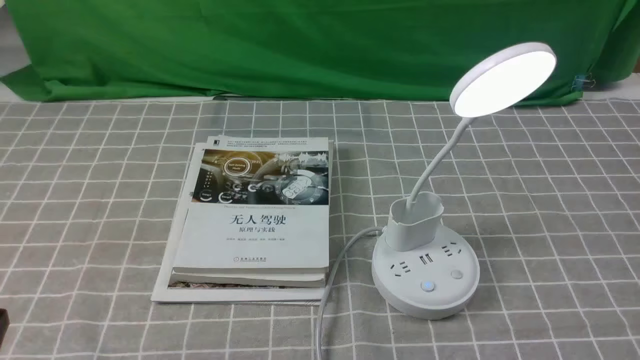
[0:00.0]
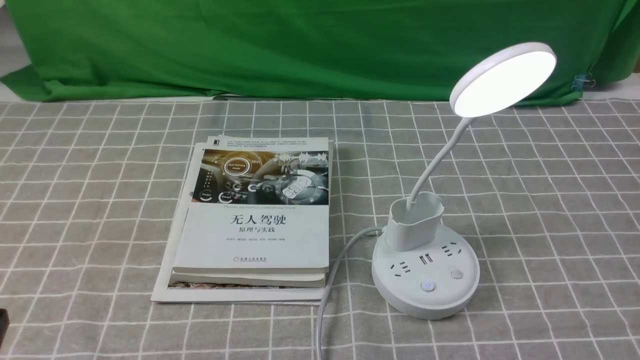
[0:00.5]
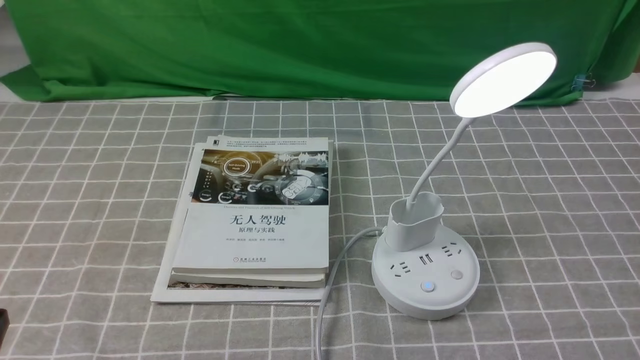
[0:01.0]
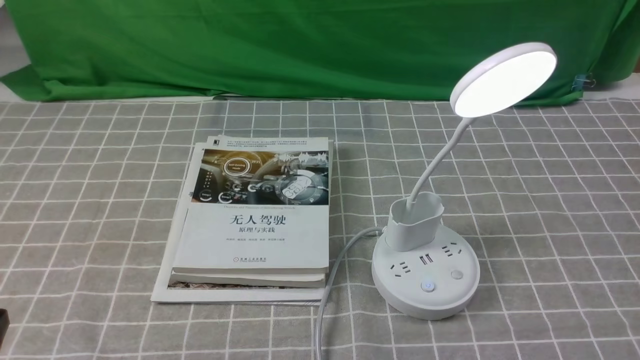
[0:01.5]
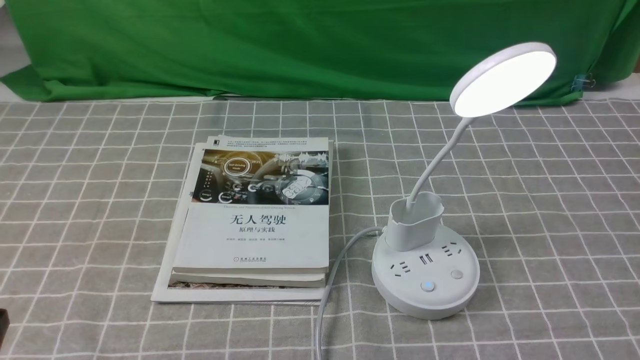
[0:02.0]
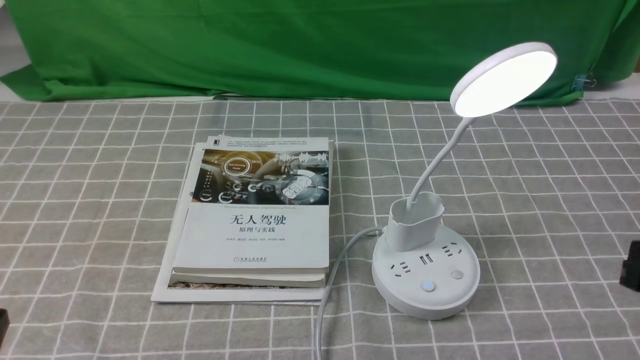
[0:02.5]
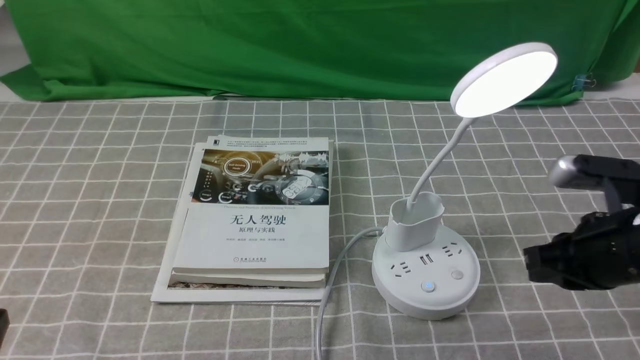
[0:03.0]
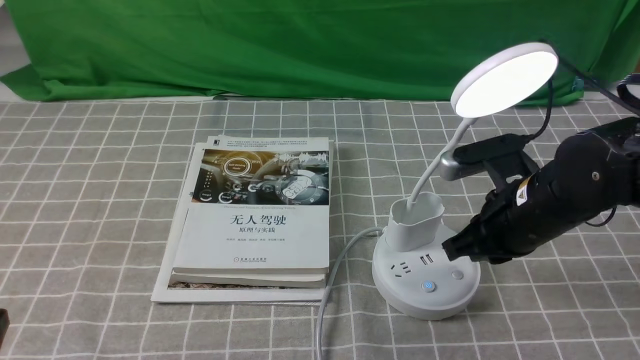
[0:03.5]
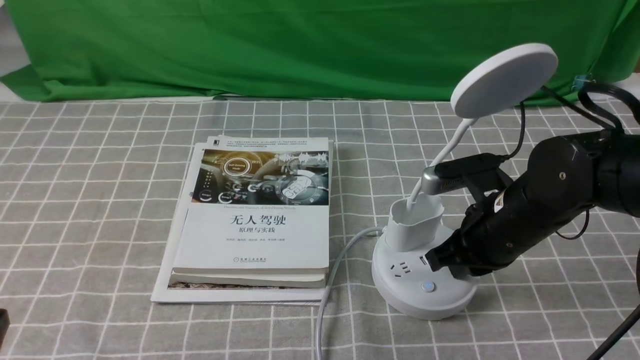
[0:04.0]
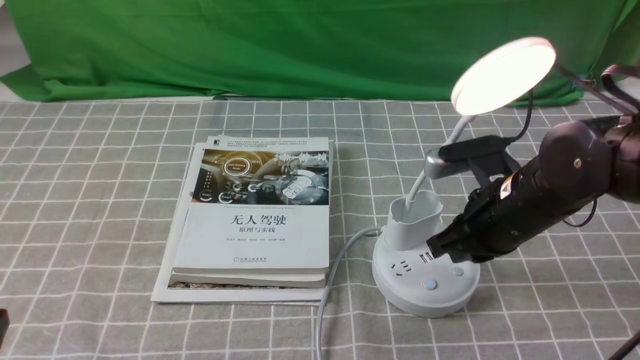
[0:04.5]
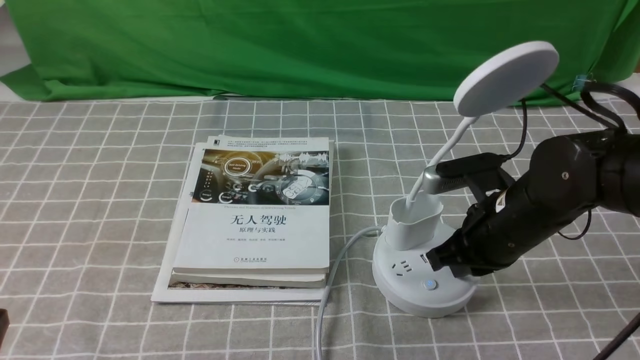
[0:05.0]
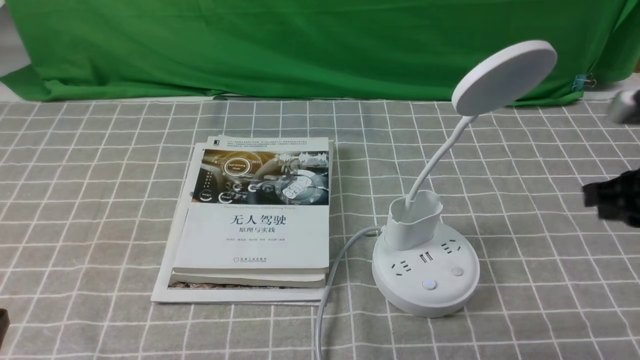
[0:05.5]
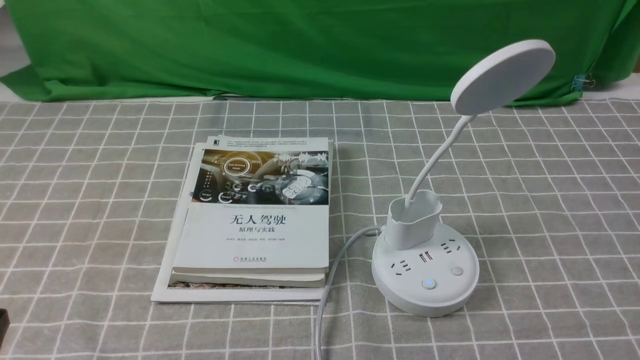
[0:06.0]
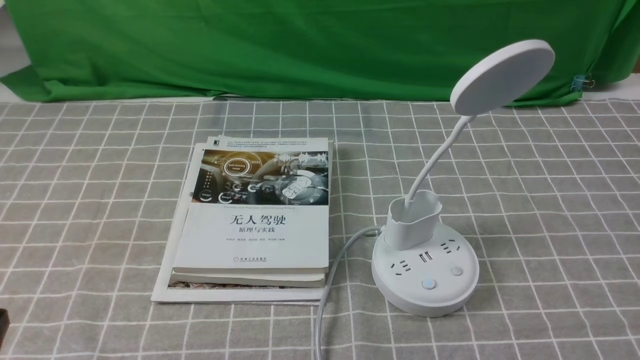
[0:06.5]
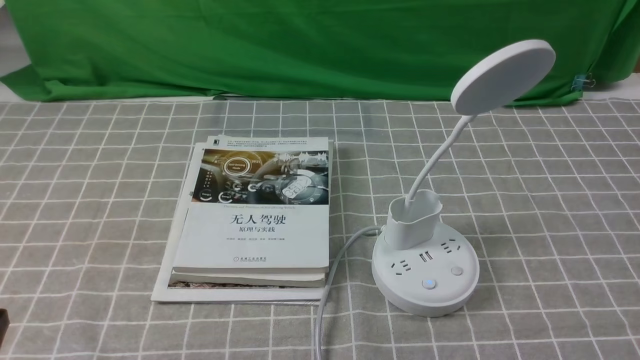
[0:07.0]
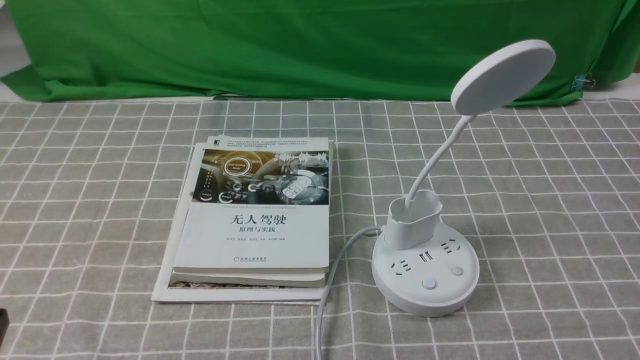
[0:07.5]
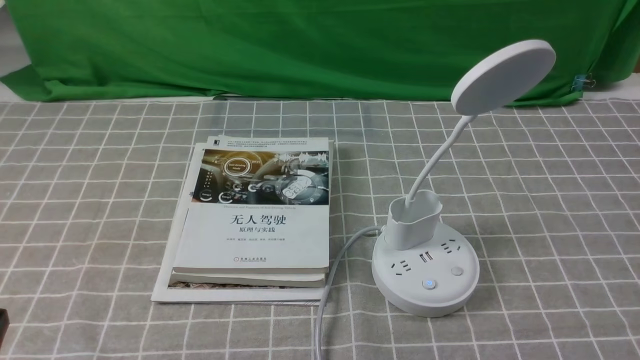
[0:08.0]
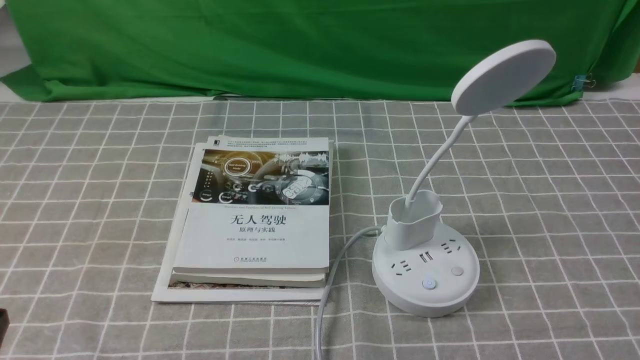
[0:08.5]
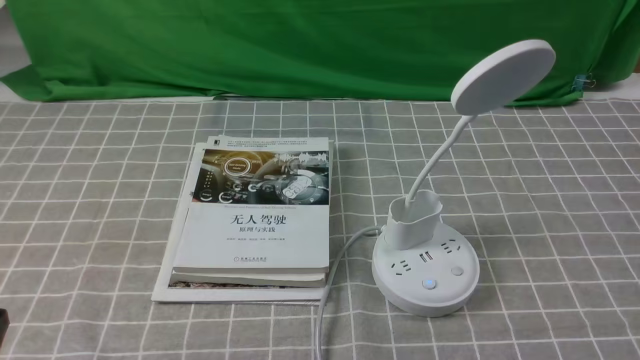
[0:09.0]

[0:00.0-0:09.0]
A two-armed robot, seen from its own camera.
Task of the whole recording: turn off the desk lamp on the grey coffee tablecloth by hand.
Step, 0:00.0 to 0:05.0: use the right arm to press the button switch on the lamp holder.
0:02.0 to 0:04.5: The right gripper travels forward, to the left and downward by roughly 30 cm, and closes.
0:04.5 to 0:07.0: The right gripper is displaced backward and to the right by approximately 30 cm.

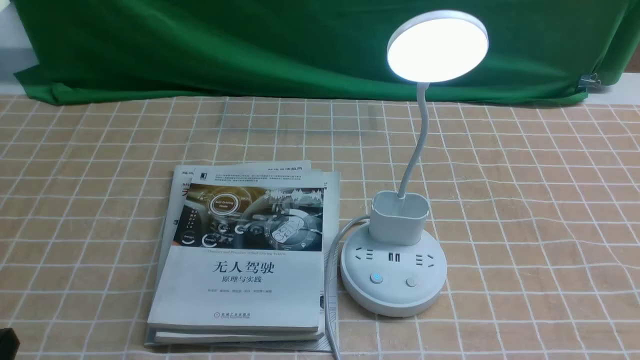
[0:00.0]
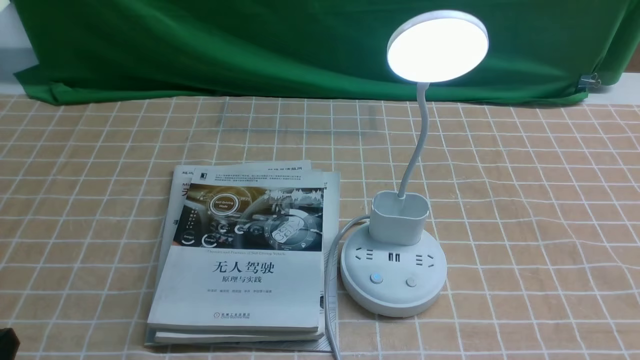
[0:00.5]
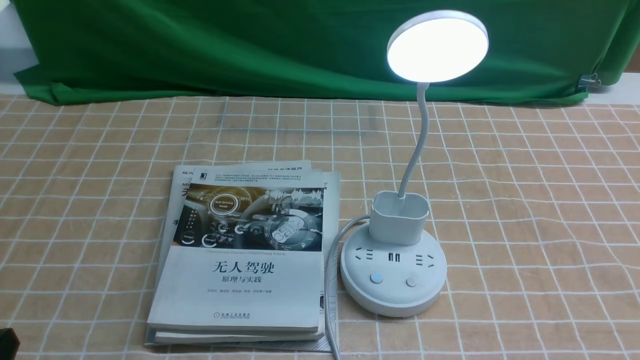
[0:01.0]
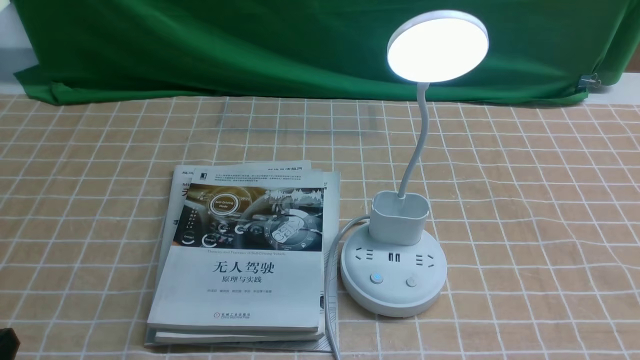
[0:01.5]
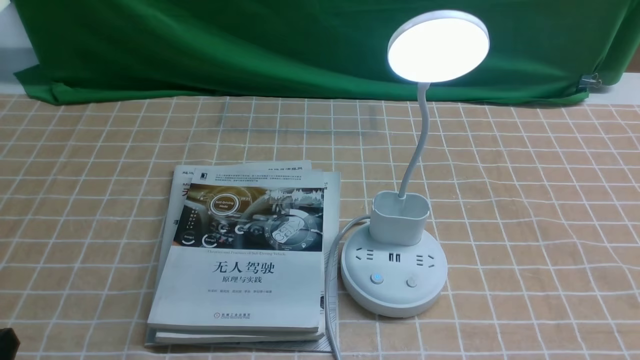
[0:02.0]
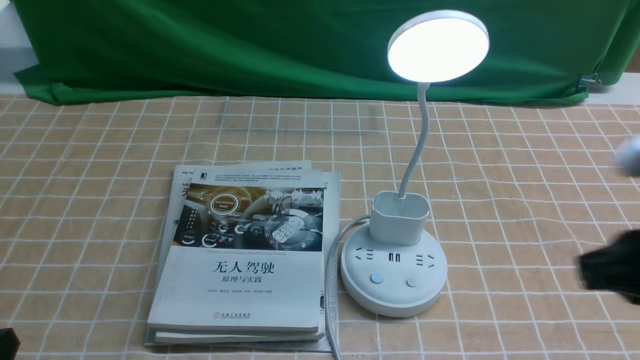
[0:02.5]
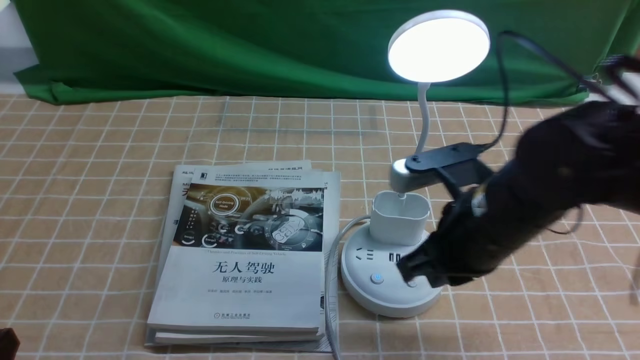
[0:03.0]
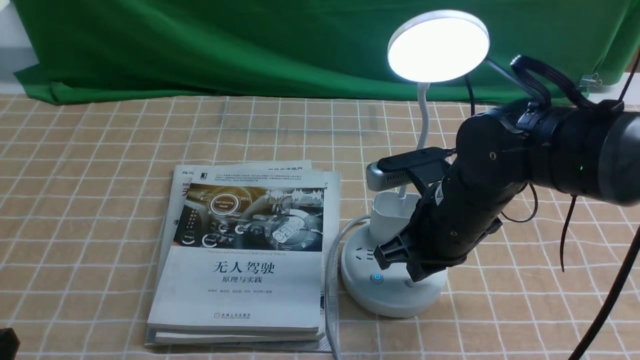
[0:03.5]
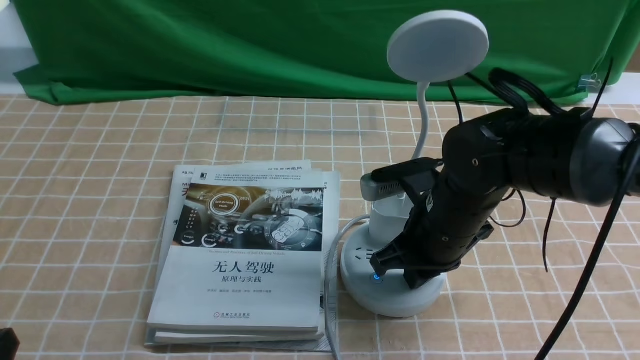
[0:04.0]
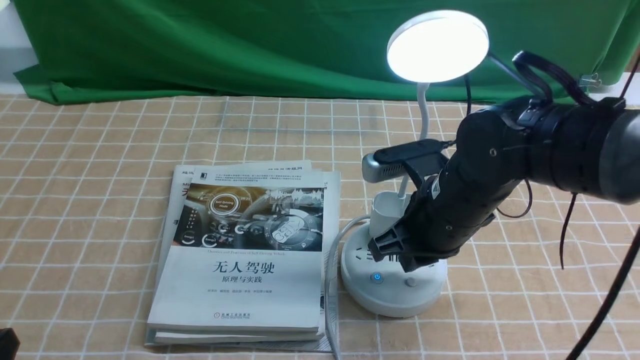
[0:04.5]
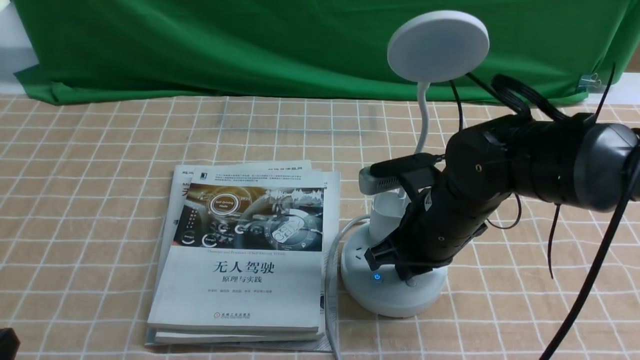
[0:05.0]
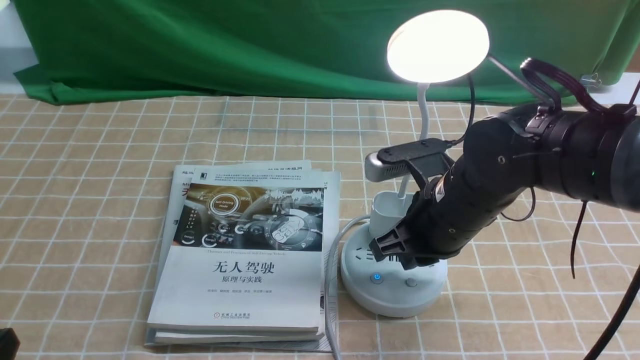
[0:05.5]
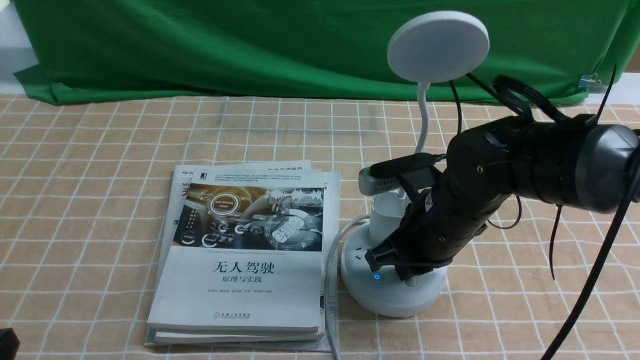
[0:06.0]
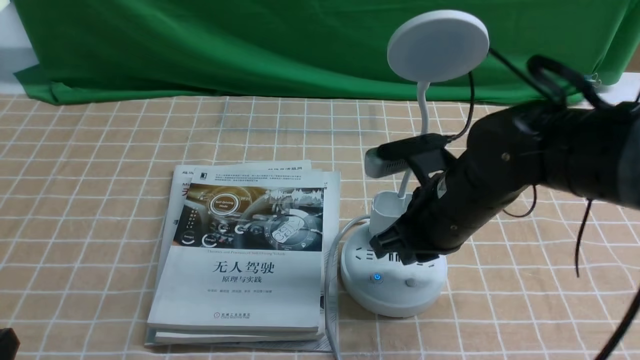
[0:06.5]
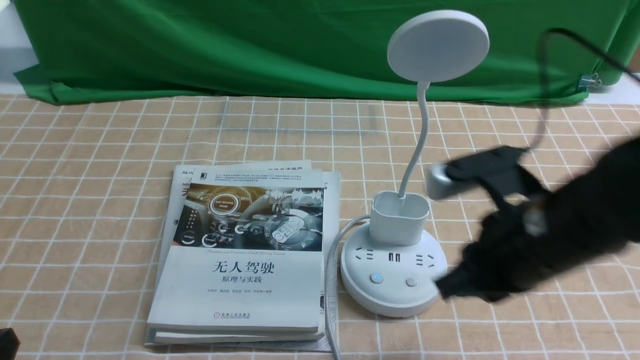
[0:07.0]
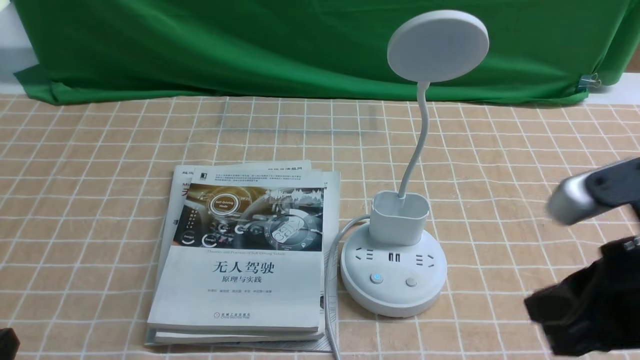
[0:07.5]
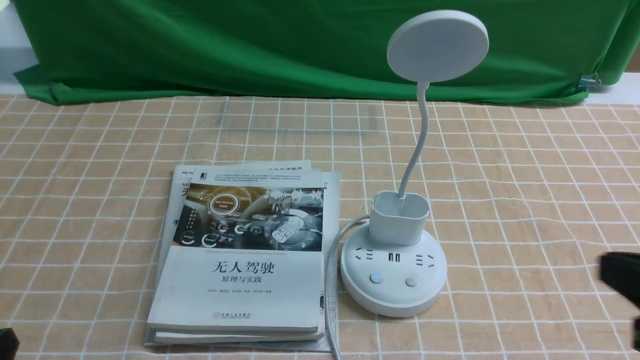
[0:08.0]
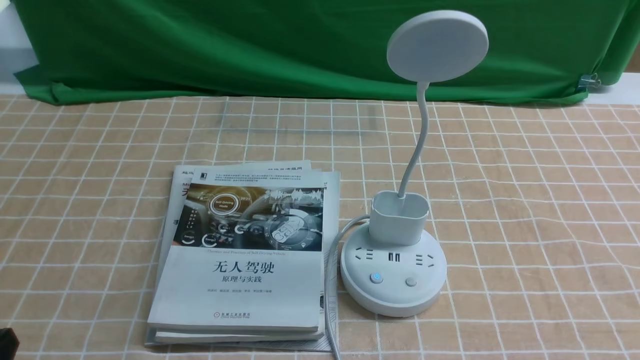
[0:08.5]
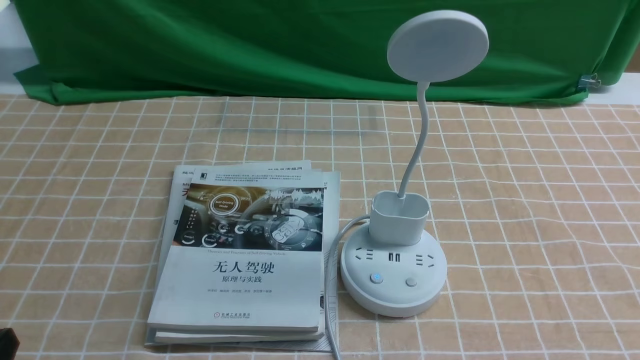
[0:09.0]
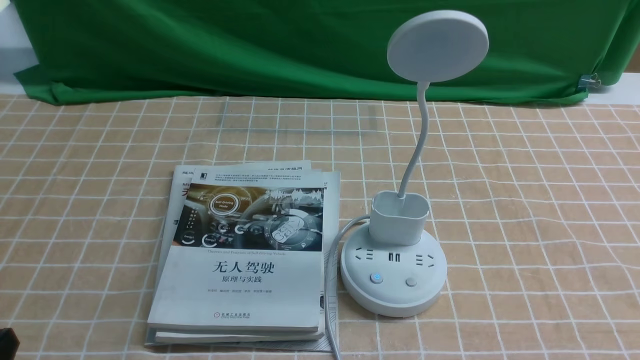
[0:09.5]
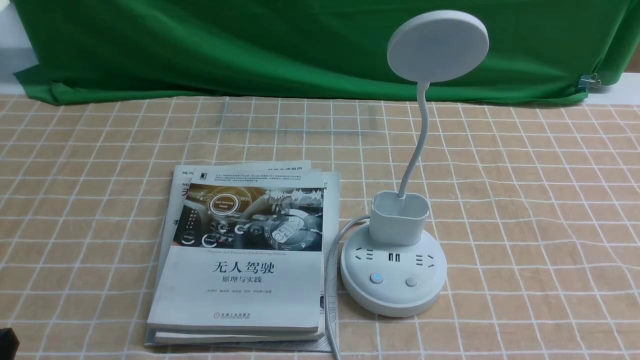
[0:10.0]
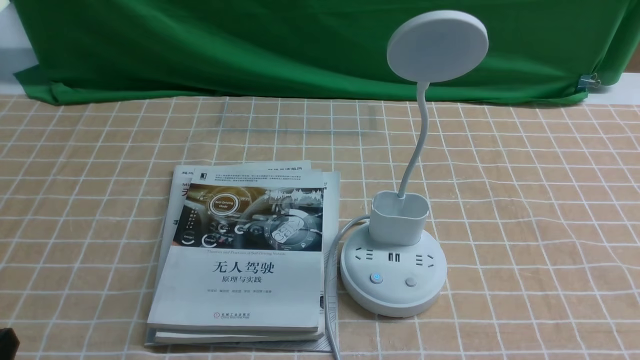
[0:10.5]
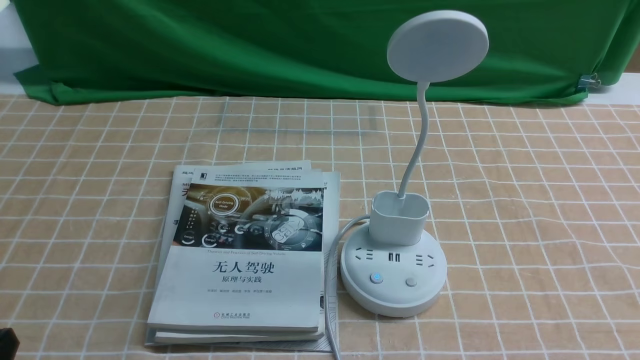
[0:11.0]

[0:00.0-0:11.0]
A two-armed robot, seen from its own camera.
Task of the whole recording: turn off the desk lamp on the light coffee tablecloth by hand.
Step, 0:00.0 to 0:06.0: use the right arm to press the button switch on the lamp holder.
0:02.0 to 0:03.5: The right gripper shifts roughly 30 cm forward and to the left, and closes its fingers.
0:03.5 to 0:05.5: There are only small adjustments of the grippers.
0:05.5 to 0:07.5: The right gripper heads backward, upward and to the right, covering approximately 20 cm.
0:07.5 to 0:09.0: The right gripper shifts roughly 20 cm downward, to the right and backward.
